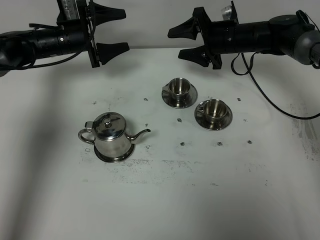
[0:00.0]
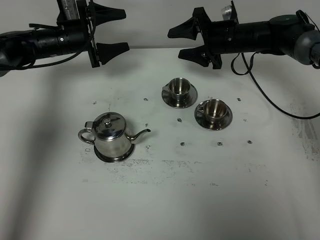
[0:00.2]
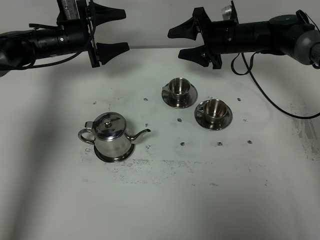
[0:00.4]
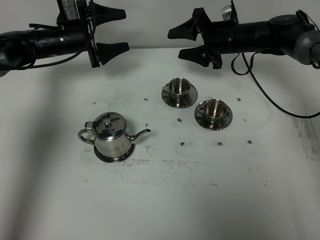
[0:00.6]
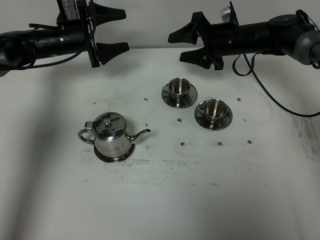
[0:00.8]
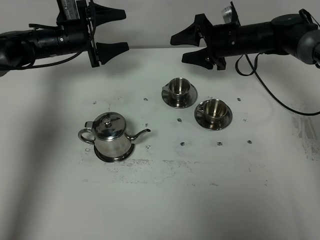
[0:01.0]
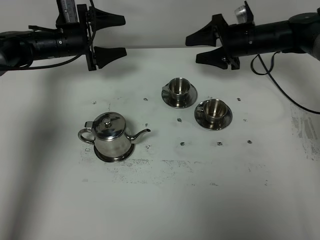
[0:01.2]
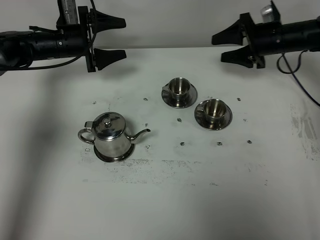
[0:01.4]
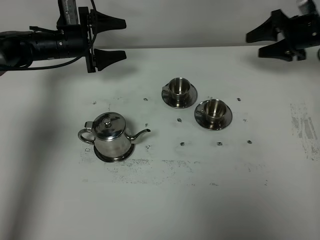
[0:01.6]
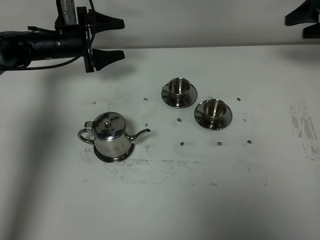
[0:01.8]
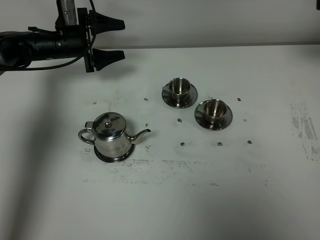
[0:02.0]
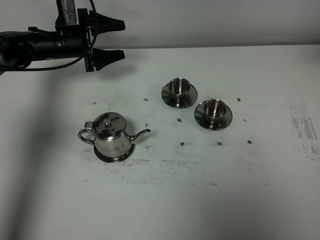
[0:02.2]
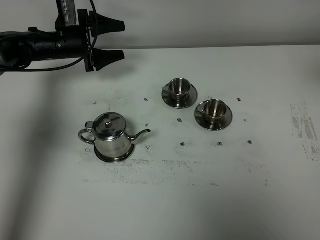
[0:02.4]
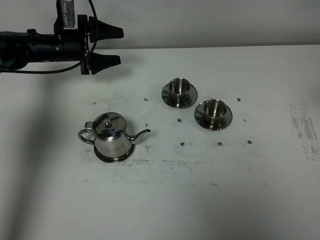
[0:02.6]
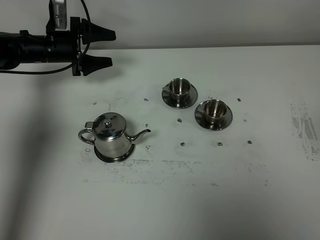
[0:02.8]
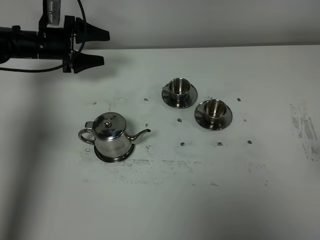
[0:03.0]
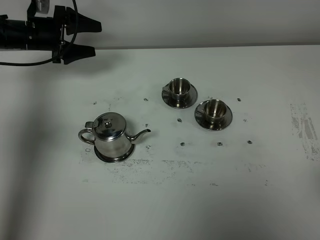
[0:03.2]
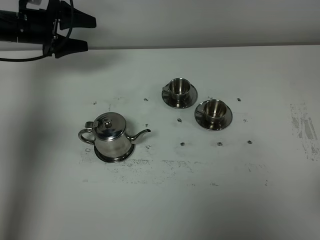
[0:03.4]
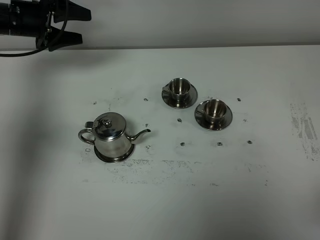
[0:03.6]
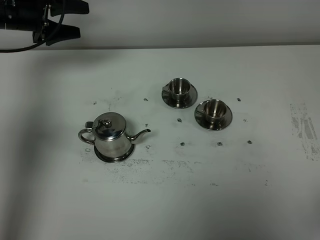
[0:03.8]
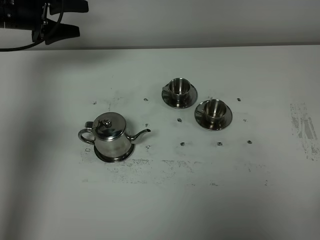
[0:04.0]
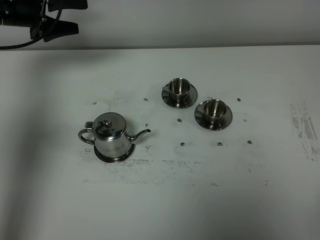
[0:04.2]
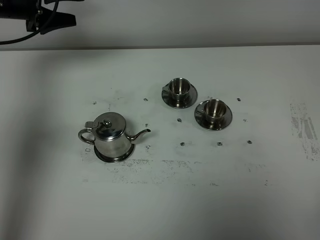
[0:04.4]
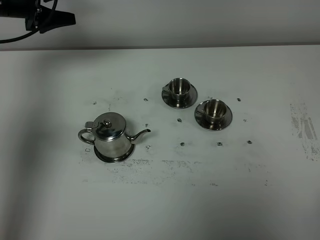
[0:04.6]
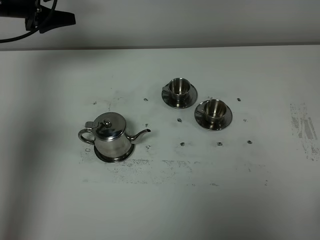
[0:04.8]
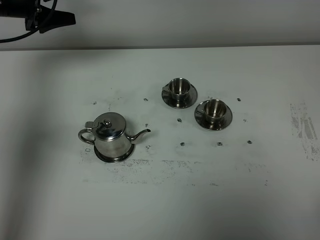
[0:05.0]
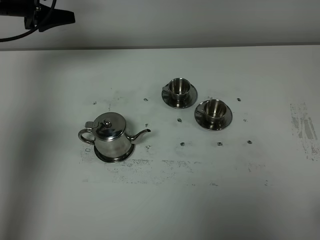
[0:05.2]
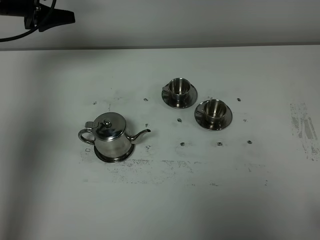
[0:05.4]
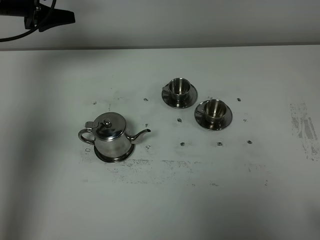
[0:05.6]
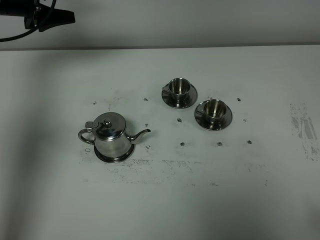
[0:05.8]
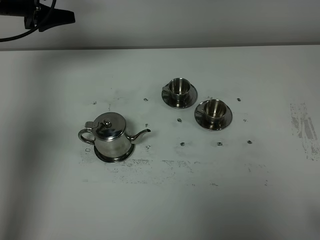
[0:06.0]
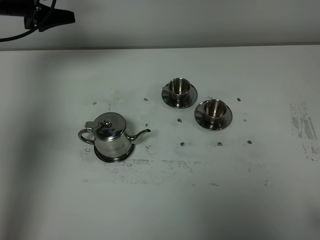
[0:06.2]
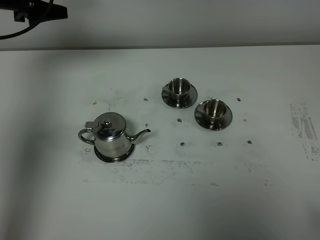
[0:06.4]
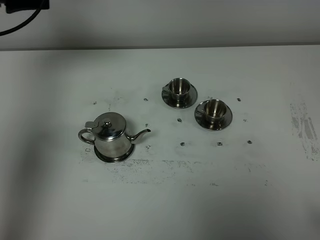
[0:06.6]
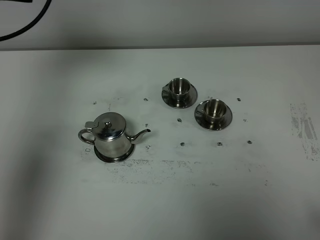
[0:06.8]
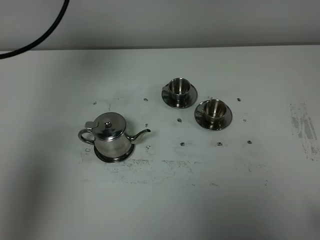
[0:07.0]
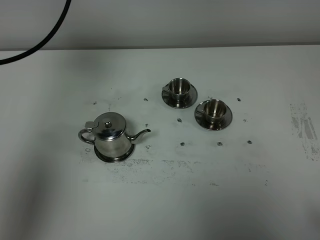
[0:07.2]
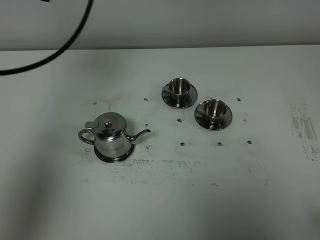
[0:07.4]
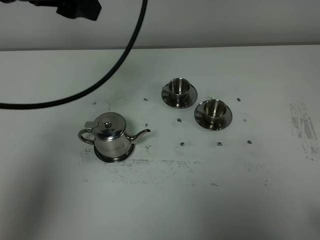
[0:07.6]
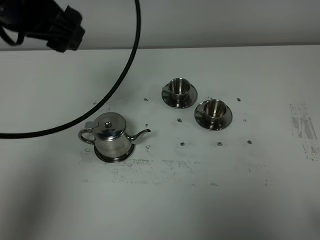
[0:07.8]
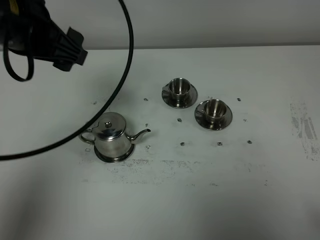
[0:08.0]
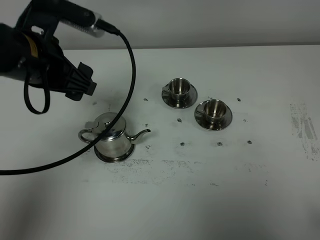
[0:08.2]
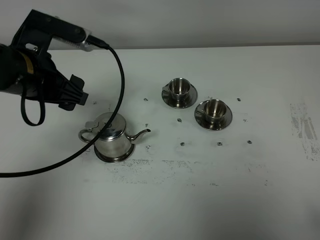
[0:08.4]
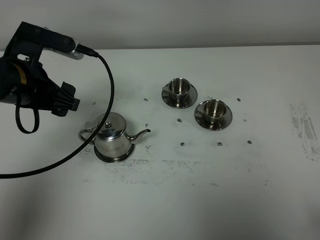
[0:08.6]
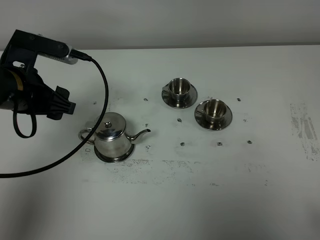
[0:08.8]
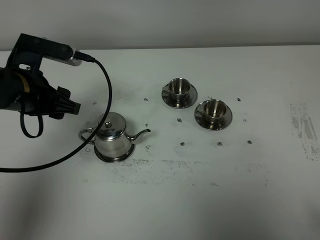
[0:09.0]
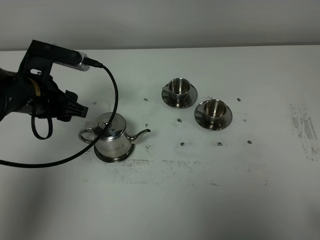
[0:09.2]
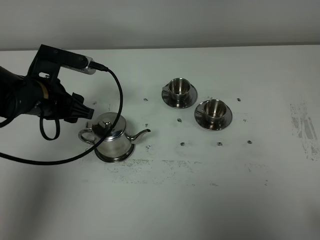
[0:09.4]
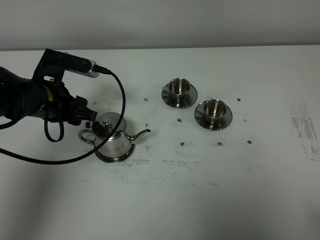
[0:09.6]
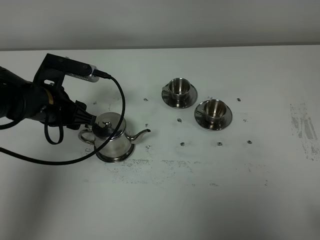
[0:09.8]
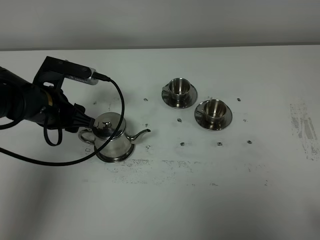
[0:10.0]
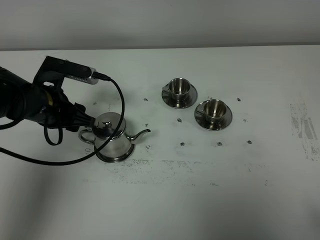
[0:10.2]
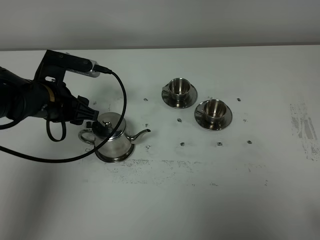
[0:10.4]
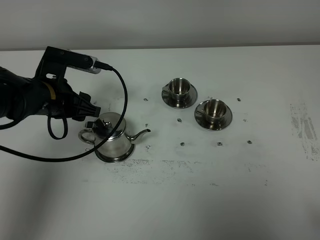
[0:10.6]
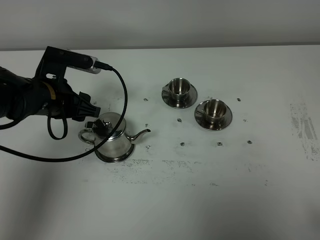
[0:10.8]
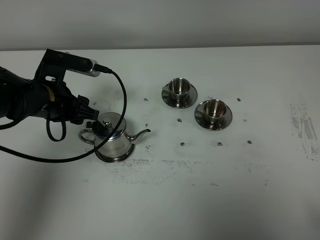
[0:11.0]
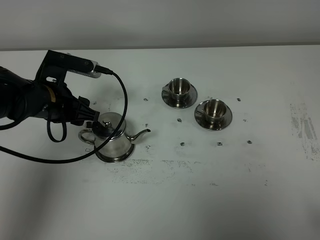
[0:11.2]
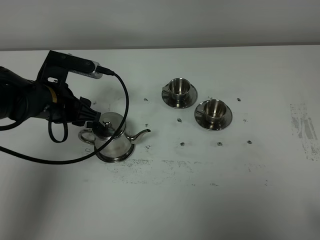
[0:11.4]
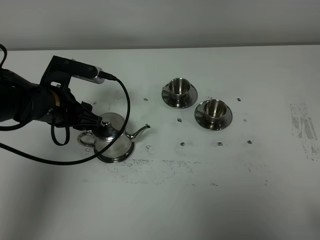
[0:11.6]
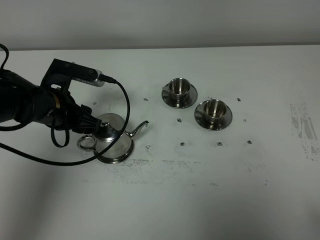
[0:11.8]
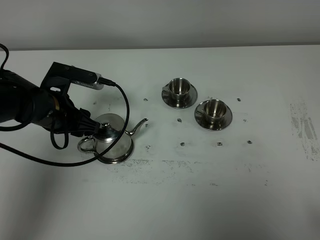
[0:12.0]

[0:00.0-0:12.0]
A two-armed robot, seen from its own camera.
Task of the whole recording: grasp the stainless steel teapot and pour the tea into the two stainless steel teacups one by one, put the stainless steel teapot back in its original place.
0:00.0 to 0:01.6: The right gripper moves to the right, approximately 15 cm.
0:01.6 to 0:03.0: The right gripper shifts approximately 40 cm backward.
0:03.0 to 0:04.4: The left gripper moves upward, some 10 cm.
0:04.4 to 0:06.0: The grippers stay close to where they were, moving slightly.
0:06.0 to 0:07.6: The left gripper shifts about 25 cm backward, upward and to the right.
0:07.6 to 0:09.0: The left gripper heads downward, covering approximately 20 cm.
0:09.0 to 0:10.4: The left gripper moves approximately 5 cm.
0:10.4 to 0:12.0: There are only small adjustments of the grippers.

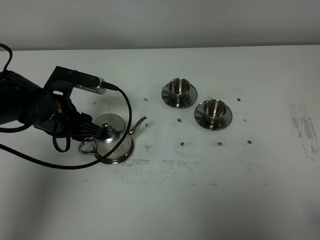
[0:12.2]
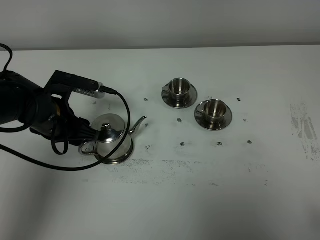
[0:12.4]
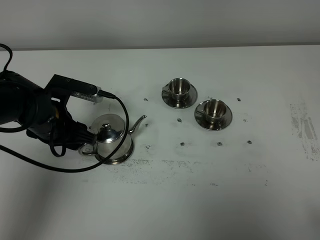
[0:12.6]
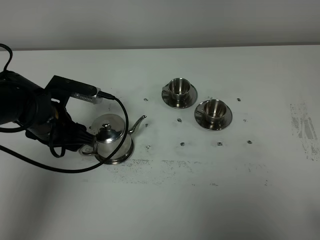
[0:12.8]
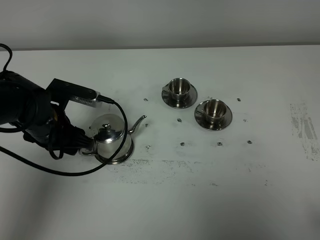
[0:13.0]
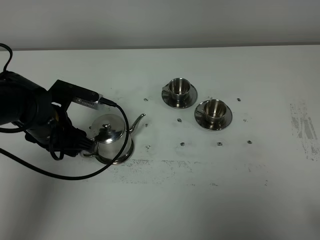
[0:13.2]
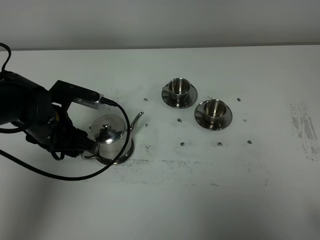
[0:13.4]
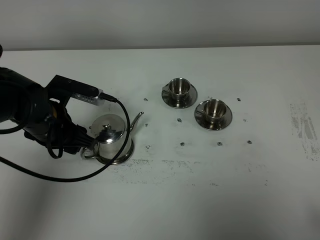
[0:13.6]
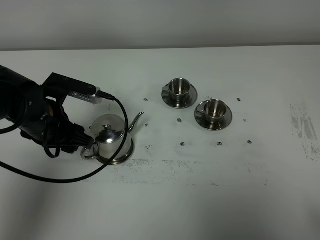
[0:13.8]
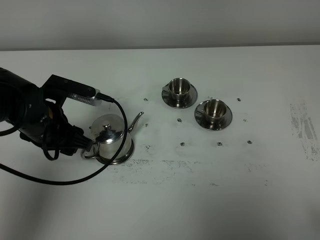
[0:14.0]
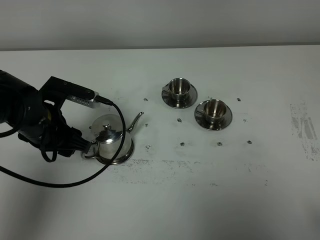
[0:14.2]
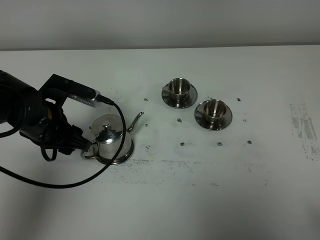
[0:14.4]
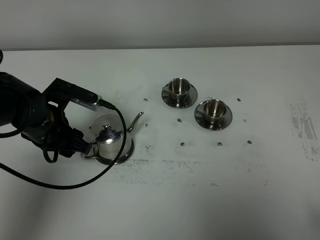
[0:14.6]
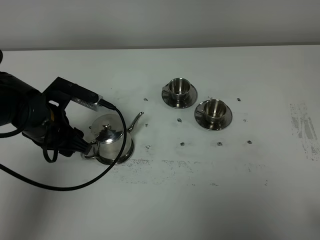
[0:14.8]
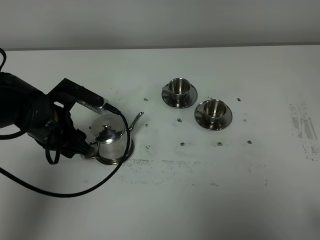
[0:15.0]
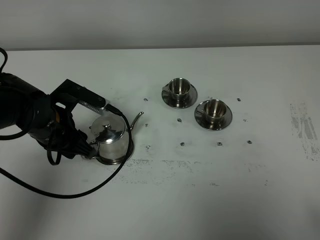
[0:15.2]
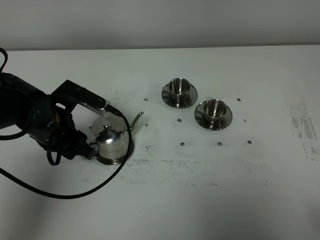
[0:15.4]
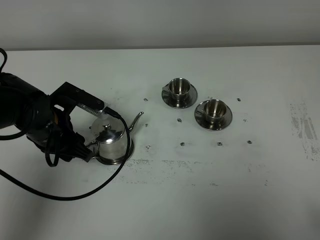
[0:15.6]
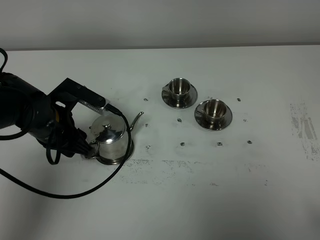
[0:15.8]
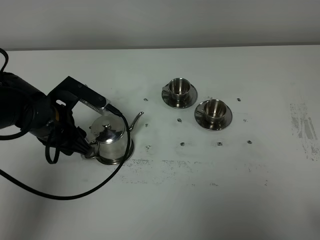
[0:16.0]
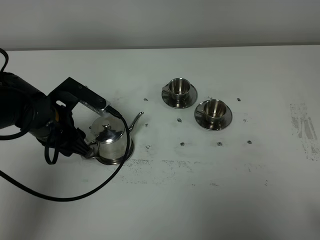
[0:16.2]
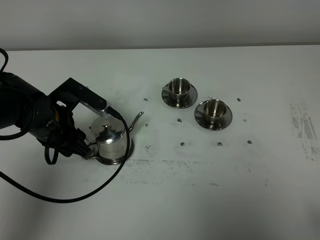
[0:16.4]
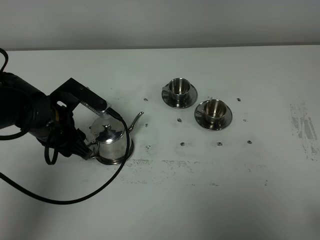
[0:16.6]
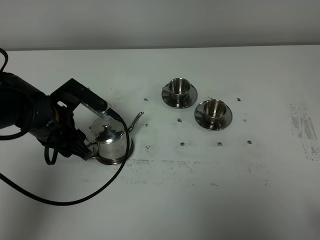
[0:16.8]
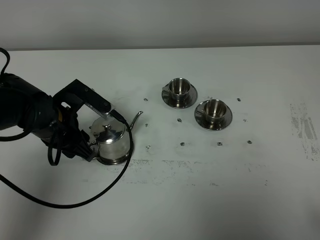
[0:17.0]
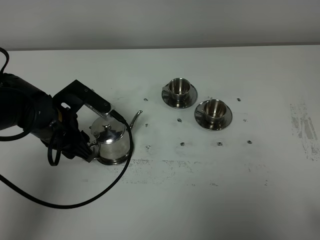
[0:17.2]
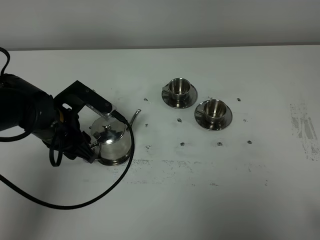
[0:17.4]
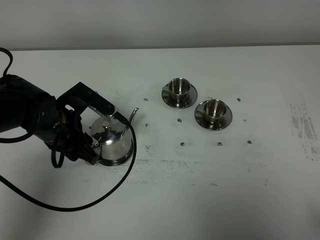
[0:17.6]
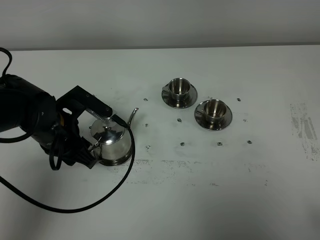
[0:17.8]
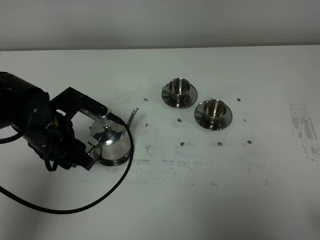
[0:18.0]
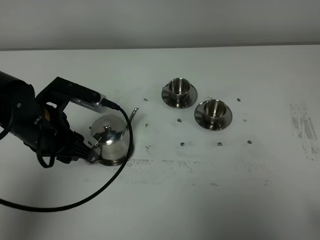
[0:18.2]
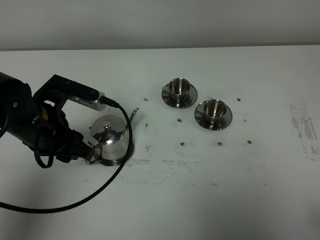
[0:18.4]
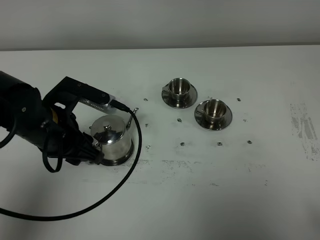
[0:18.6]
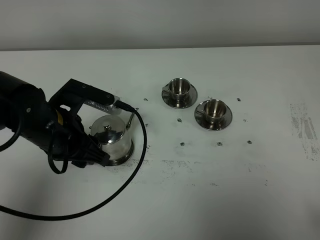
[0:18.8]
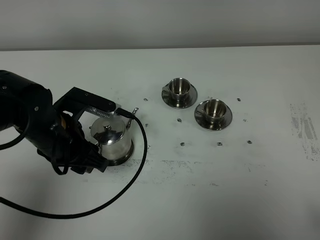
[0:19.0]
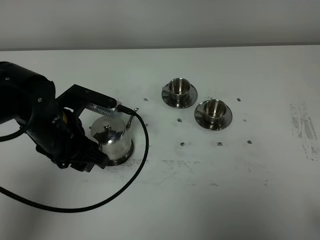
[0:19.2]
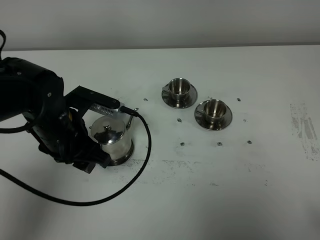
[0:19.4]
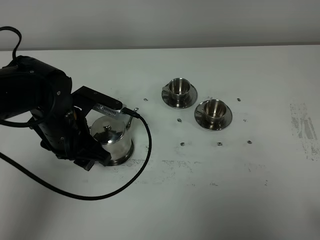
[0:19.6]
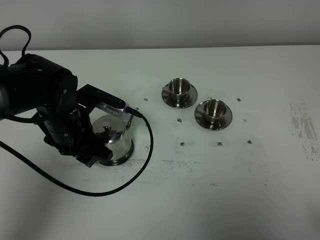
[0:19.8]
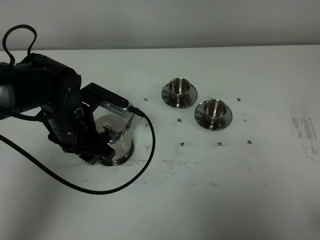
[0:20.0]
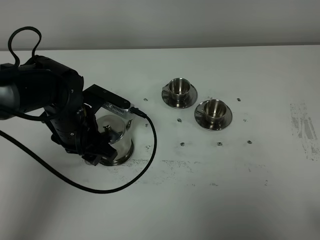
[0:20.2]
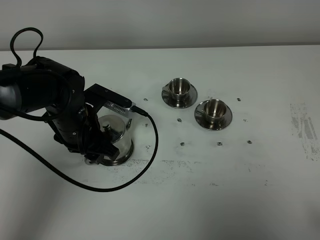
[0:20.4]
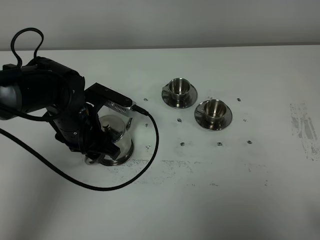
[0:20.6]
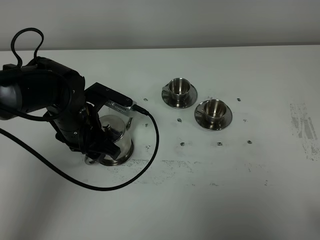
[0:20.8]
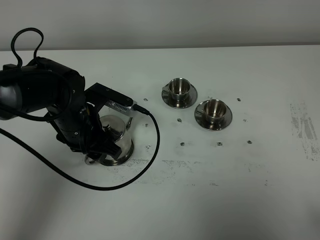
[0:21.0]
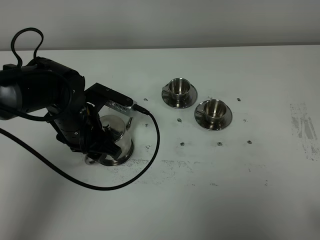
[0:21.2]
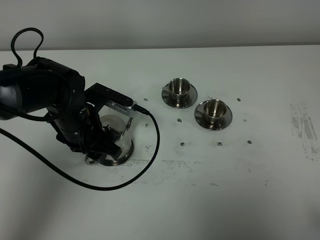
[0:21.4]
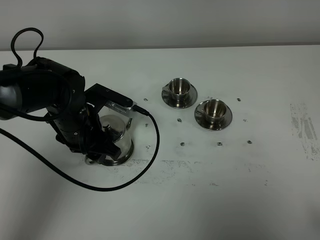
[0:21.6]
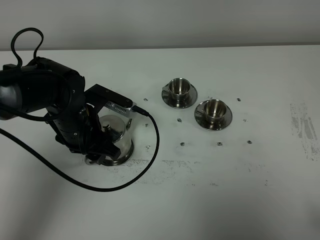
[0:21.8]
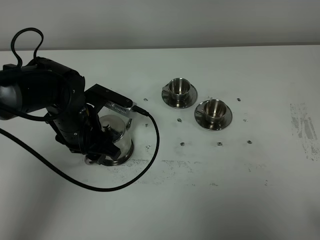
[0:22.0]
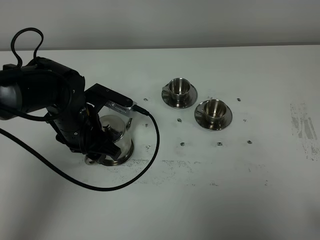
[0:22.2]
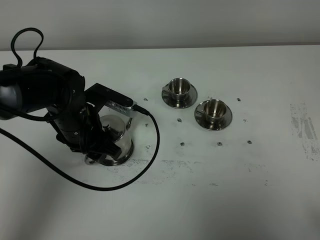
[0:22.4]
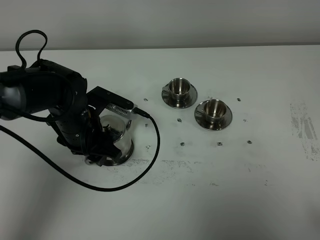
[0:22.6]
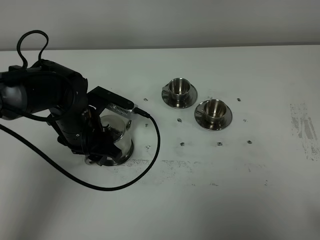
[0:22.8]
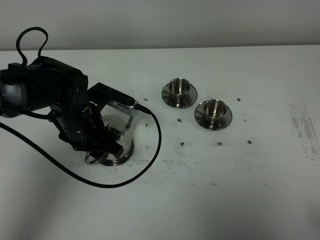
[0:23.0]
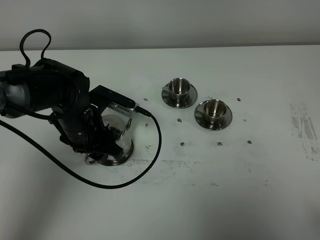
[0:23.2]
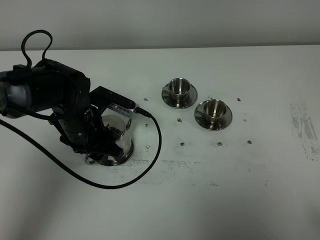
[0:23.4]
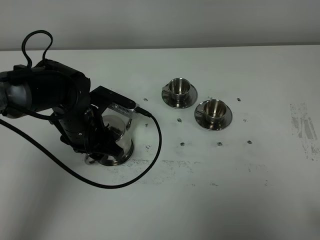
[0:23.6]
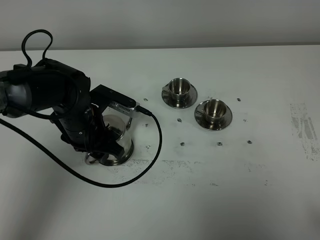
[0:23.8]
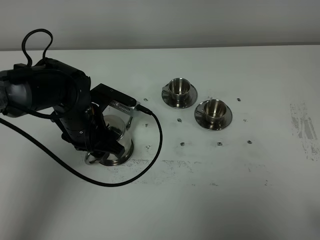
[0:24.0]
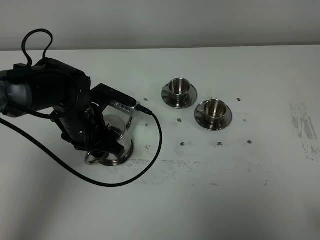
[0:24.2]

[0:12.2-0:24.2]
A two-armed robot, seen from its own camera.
Task of the whole recording: grasp the stainless steel teapot and pour the tea into the two stainless steel teacups one by one, put the stainless steel teapot back in its original place.
0:12.2 to 0:16.6: The grippers move only a little.
0:16.6 to 0:18.2: The left gripper shifts by some 5 cm.
0:18.2 to 0:19.8: The left gripper ends up roughly 5 cm from where it was.
0:19.8 to 0:21.2: The grippers move only a little.
0:21.2 to 0:24.2: Both grippers stay put.
